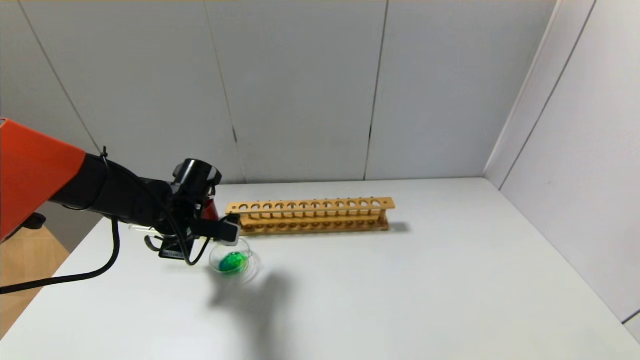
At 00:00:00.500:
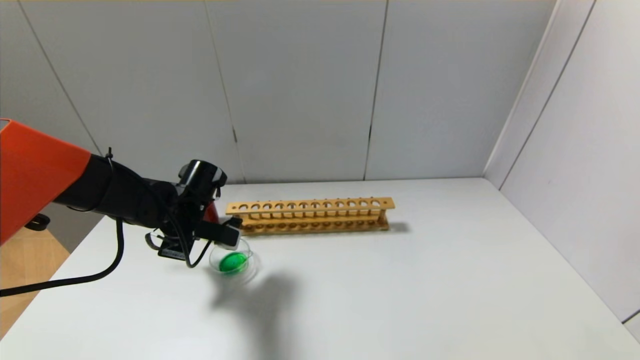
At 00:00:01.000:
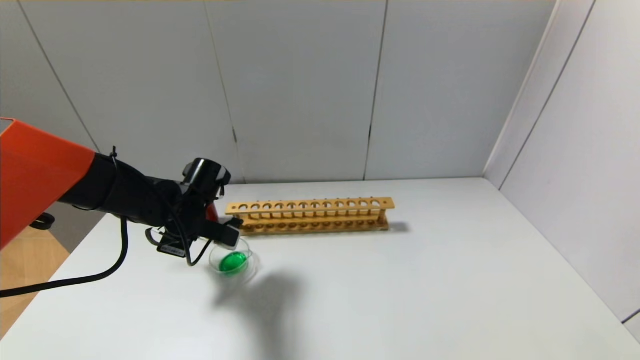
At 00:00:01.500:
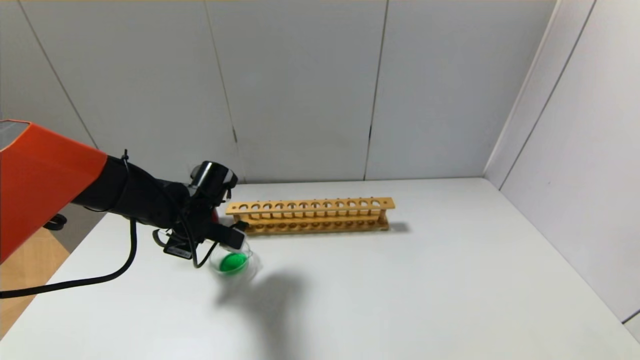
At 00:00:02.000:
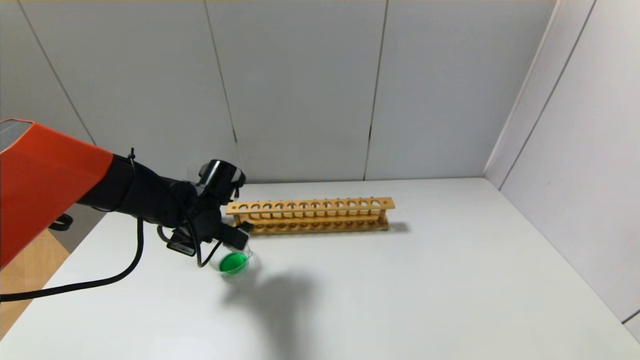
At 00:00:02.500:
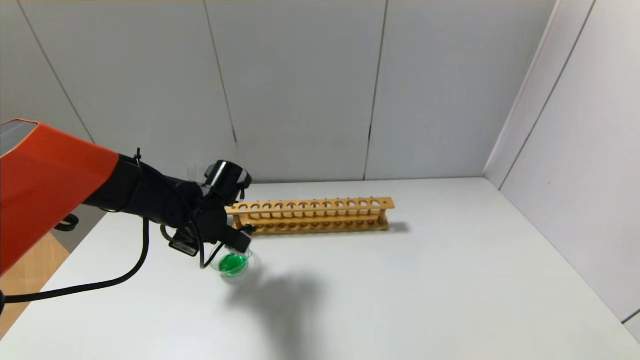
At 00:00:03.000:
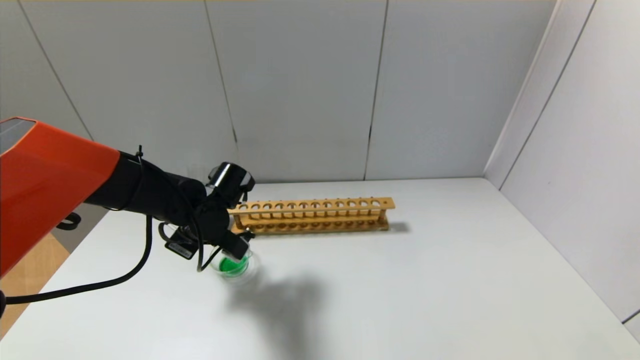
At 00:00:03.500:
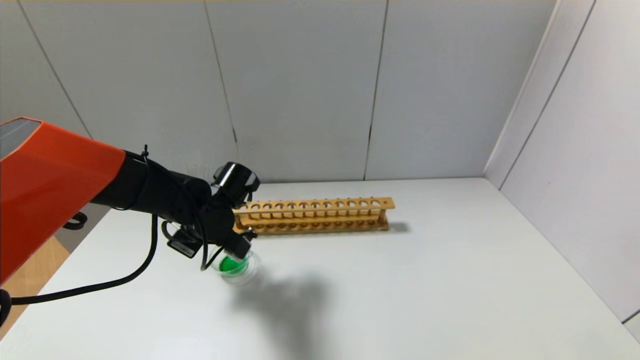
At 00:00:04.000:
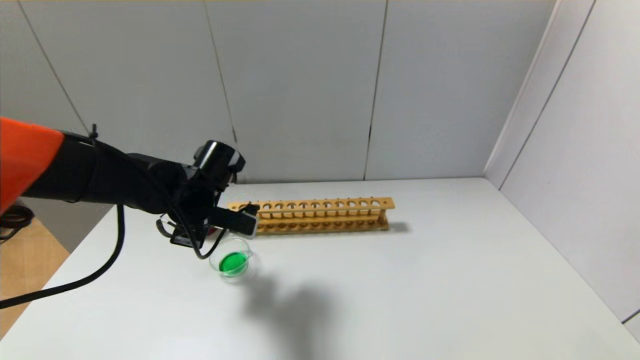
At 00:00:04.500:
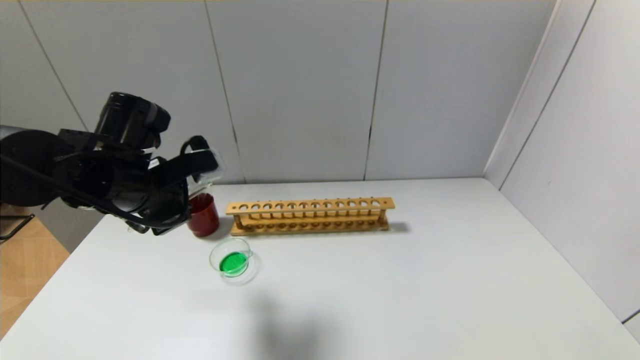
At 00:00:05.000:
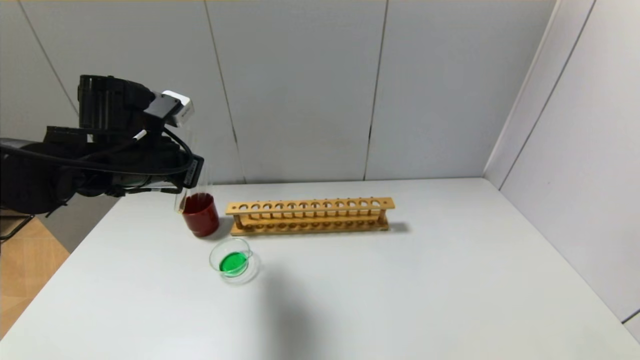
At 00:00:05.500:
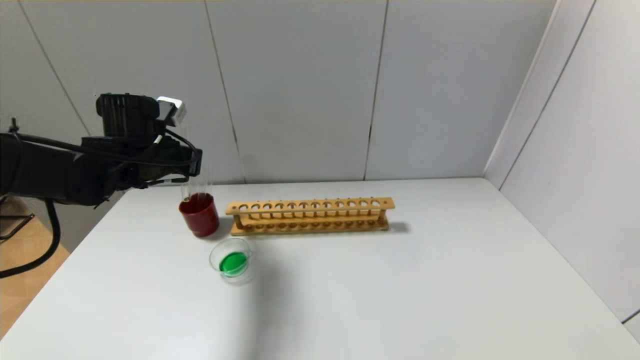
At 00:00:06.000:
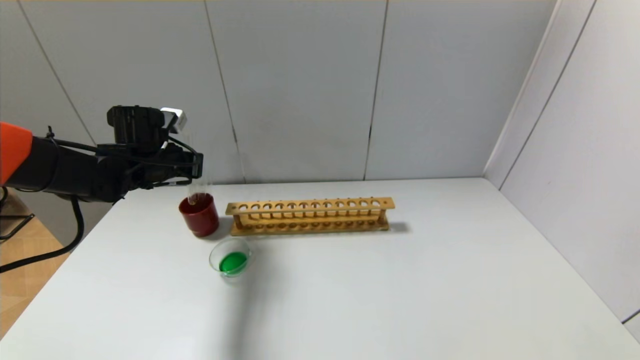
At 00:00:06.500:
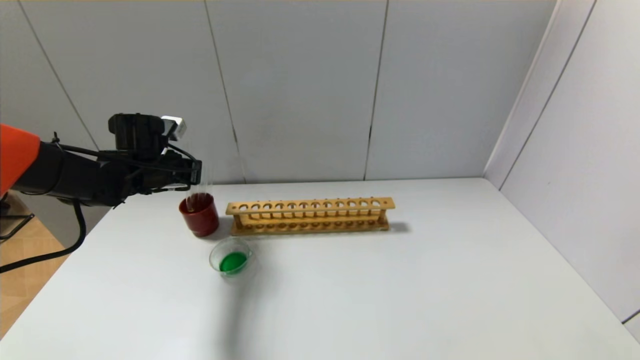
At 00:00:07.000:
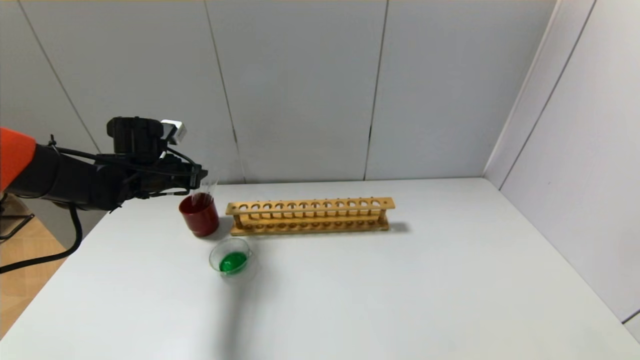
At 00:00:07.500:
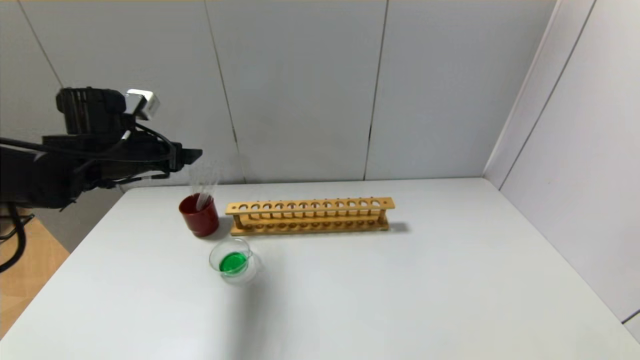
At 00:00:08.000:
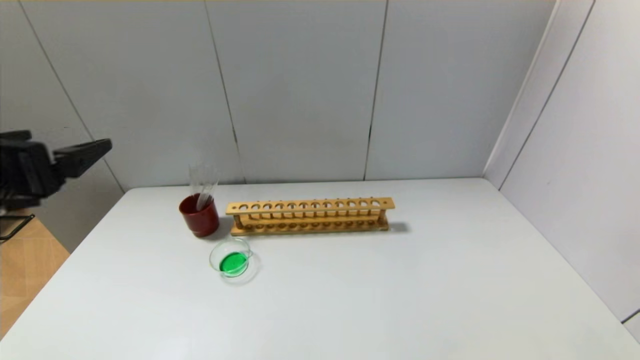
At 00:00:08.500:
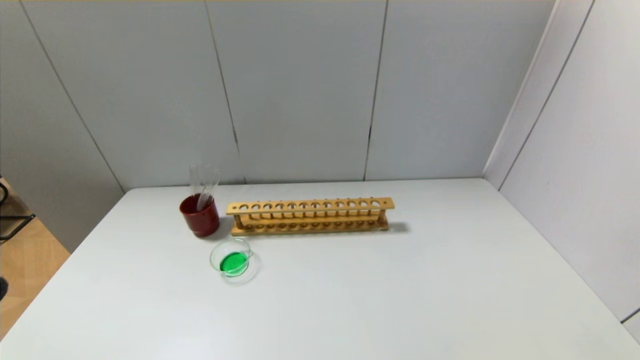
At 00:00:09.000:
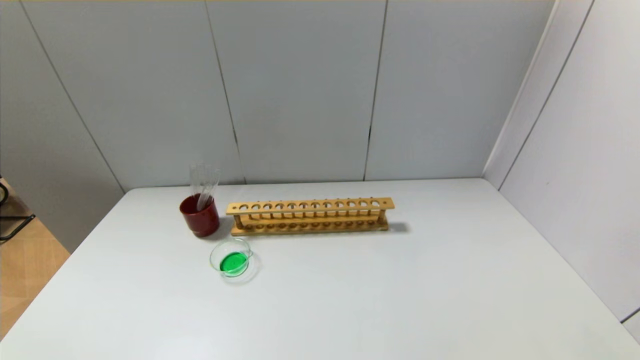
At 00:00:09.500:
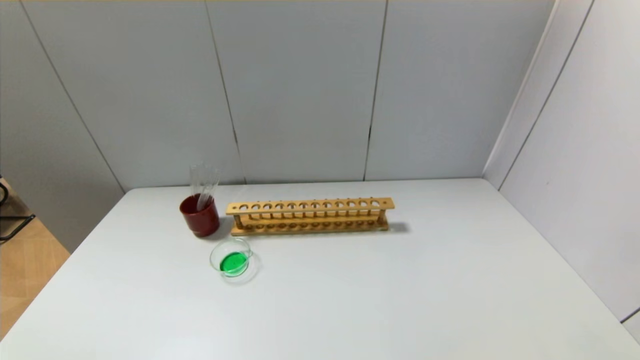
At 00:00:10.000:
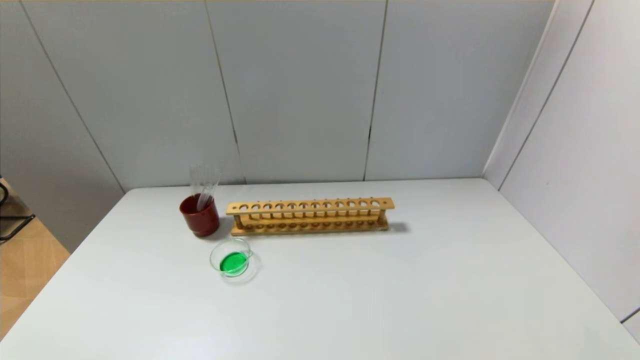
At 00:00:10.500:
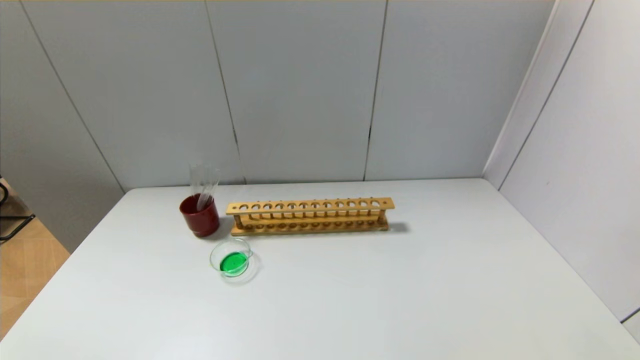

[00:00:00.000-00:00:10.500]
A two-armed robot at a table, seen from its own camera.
Step, 00:00:00.000 to 00:00:04.000: Pour the yellow reagent into the graduated cylinder with the left gripper.
Step, 00:00:04.500 to 00:00:07.000: Place the test tube into the brown cup with the left gripper.
00:00:00.000 to 00:00:02.000: The grippers stay close to where they were, moving slightly.
00:00:02.000 to 00:00:04.000: The left gripper changes place by about 5 cm.
00:00:04.000 to 00:00:06.500: The left gripper goes roughly 15 cm to the left and forward.
00:00:06.500 to 00:00:08.500: The left gripper shifts about 40 cm backward, and opens its fingers.
